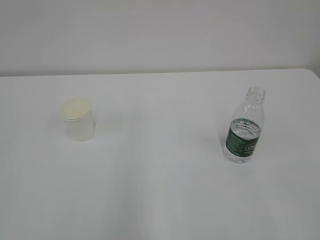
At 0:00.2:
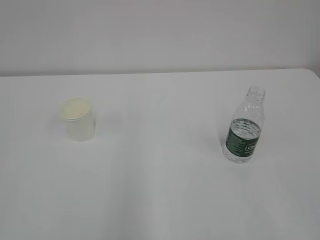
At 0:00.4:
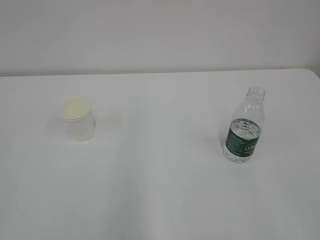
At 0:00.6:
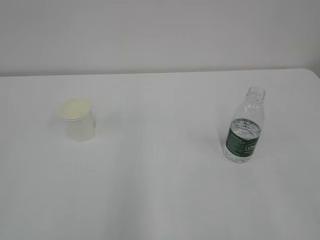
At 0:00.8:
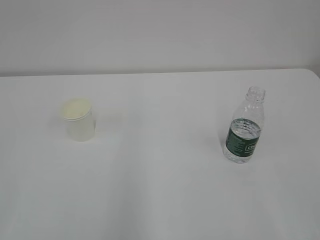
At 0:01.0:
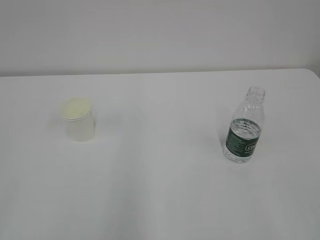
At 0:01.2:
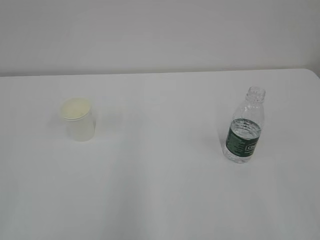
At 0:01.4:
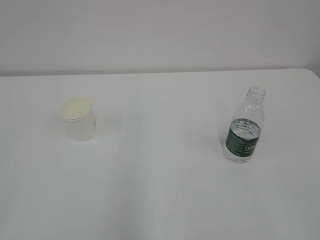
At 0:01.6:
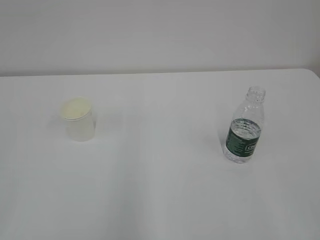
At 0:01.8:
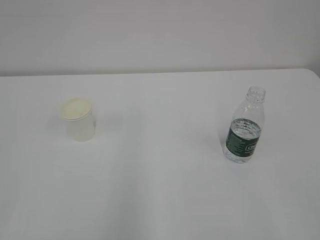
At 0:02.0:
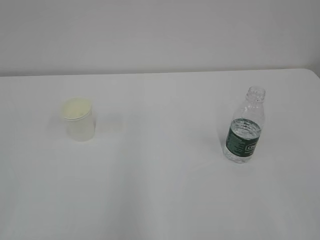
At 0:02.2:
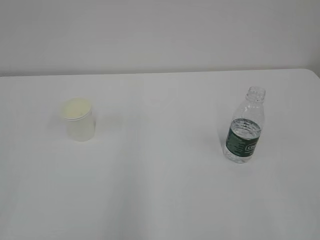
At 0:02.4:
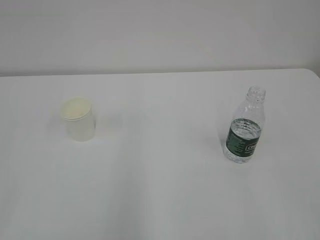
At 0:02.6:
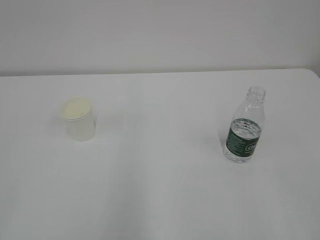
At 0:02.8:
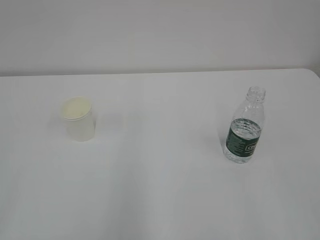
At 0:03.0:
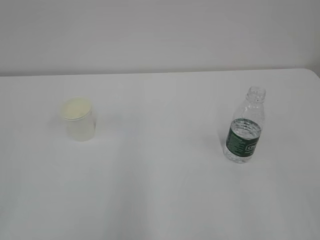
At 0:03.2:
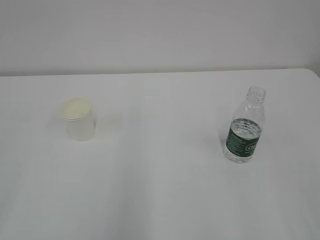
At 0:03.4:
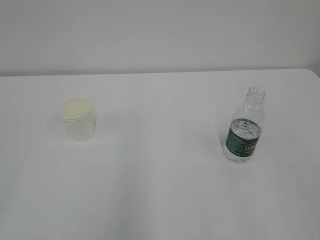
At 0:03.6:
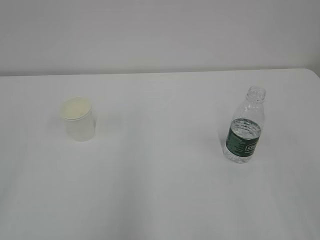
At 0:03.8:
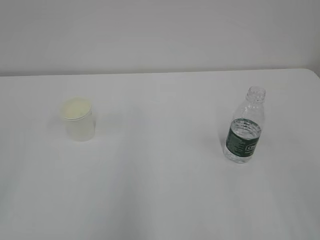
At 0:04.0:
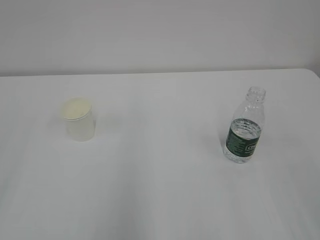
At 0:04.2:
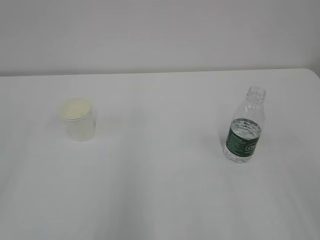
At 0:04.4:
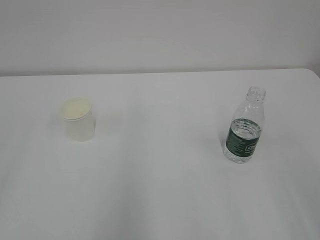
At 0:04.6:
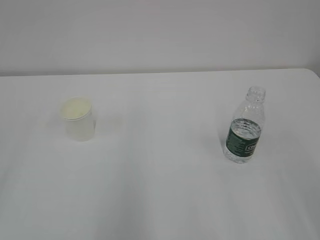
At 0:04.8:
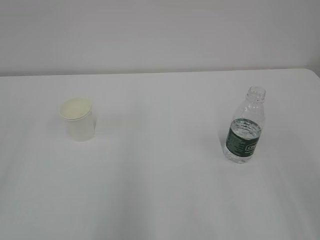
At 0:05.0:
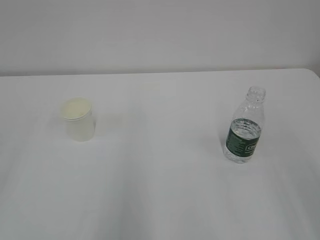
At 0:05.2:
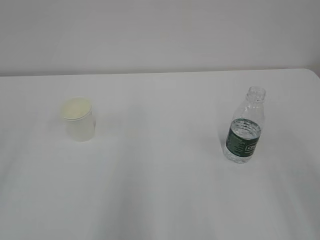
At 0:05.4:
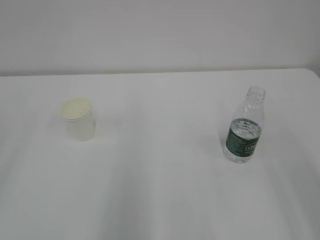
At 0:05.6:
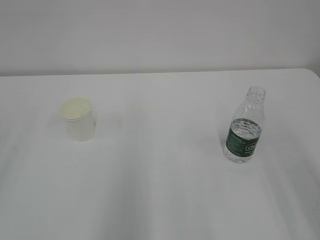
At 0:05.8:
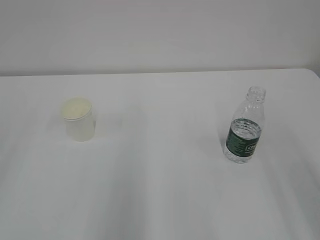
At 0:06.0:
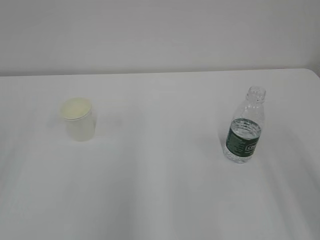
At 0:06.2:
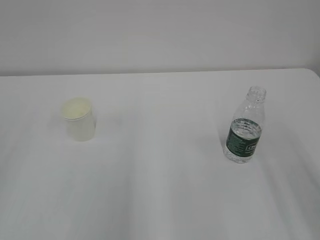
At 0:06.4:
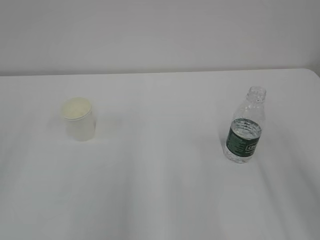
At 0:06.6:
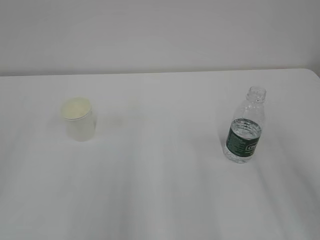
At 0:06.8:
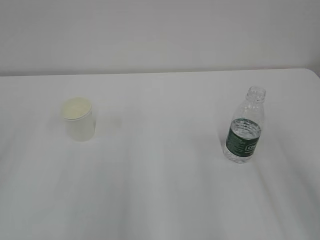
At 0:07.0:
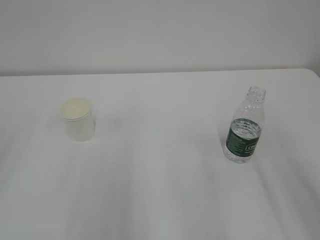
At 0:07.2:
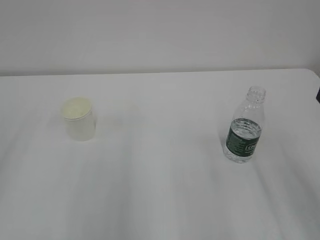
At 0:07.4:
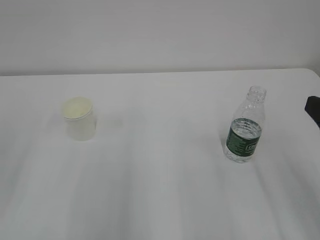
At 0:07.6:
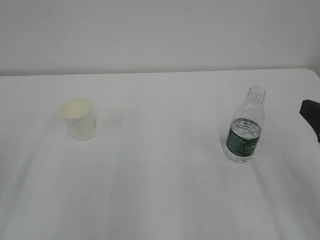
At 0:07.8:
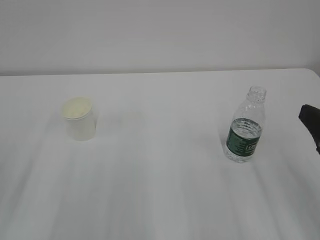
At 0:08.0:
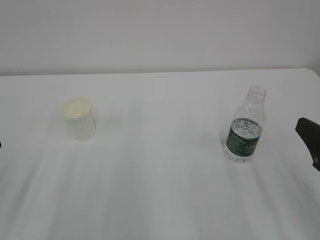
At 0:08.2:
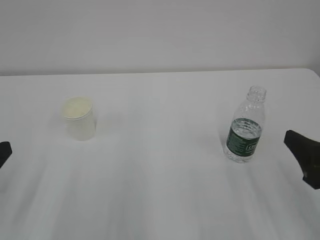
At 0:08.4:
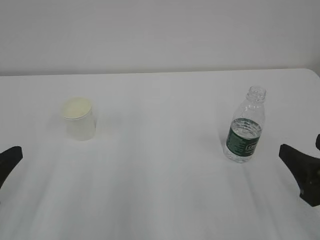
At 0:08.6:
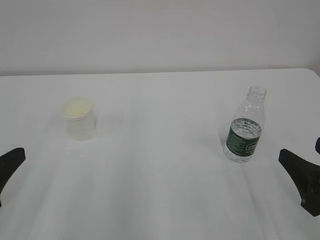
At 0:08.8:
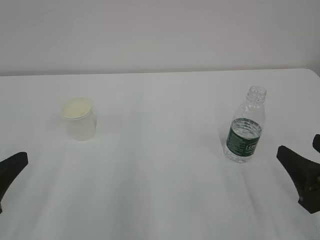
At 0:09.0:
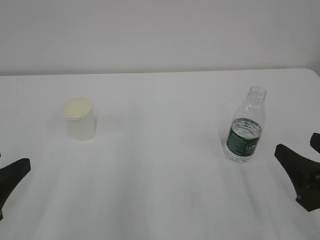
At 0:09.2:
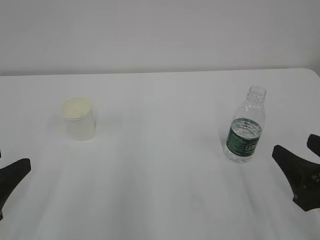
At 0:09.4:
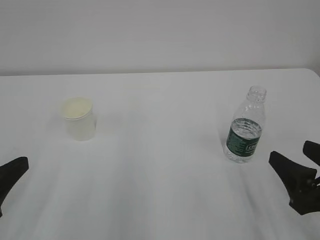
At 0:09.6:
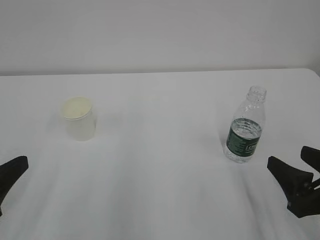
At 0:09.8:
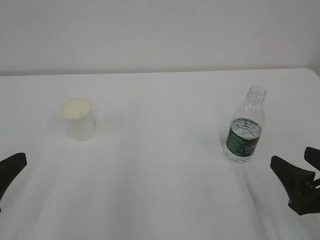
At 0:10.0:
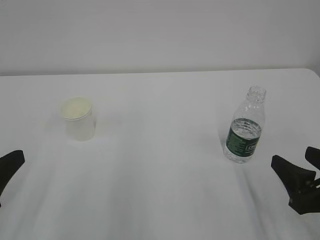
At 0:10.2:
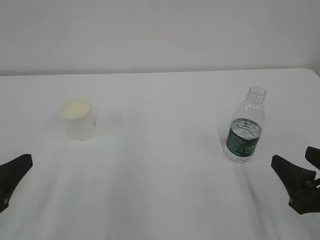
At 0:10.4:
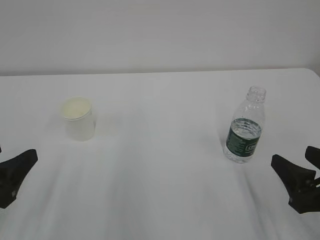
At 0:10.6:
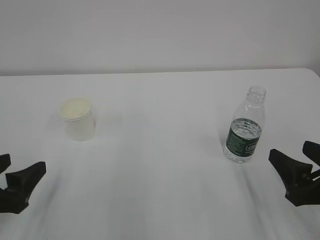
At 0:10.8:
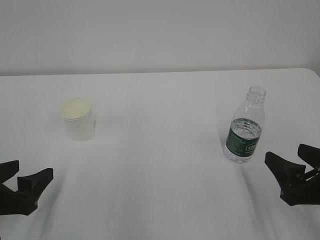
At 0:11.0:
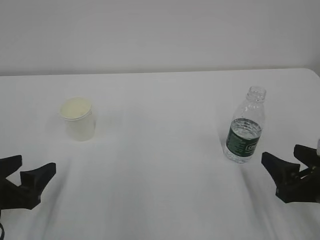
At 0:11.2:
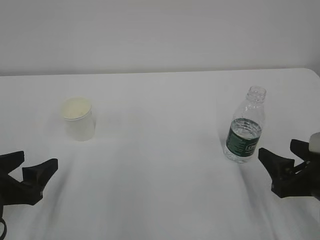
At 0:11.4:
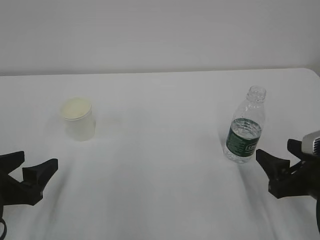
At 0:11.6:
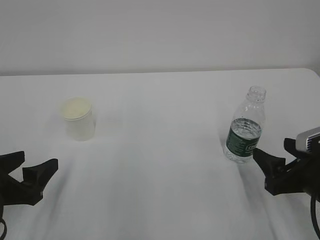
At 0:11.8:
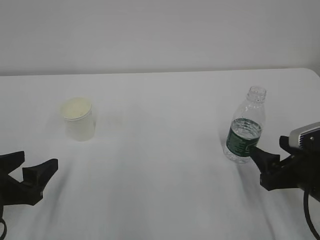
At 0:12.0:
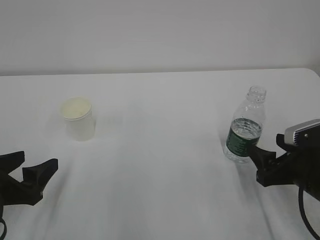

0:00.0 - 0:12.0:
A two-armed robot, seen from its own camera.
0:06.0 - 0:07.6: The right gripper heads downward, covering about 5 cm.
0:07.6 - 0:09.0: The left gripper shifts by roughly 5 cm. The right gripper heads downward, covering about 5 cm.
0:09.0 - 0:10.4: The left gripper opens its fingers.
0:10.4 - 0:12.0: The right gripper moves forward, approximately 5 cm.

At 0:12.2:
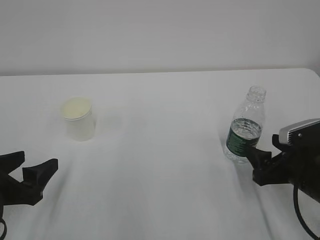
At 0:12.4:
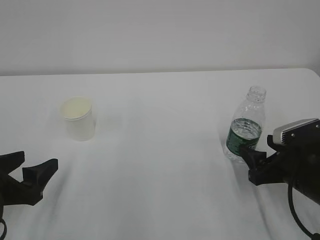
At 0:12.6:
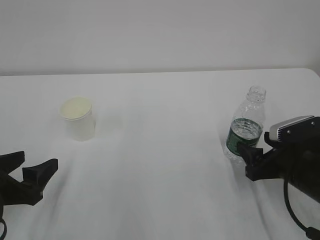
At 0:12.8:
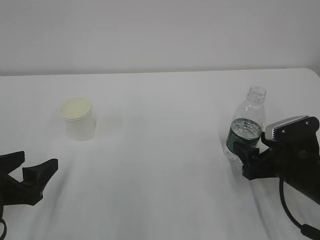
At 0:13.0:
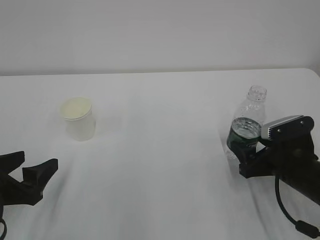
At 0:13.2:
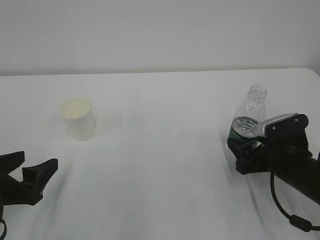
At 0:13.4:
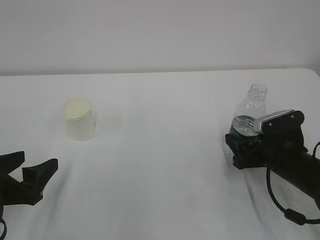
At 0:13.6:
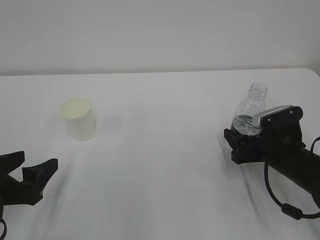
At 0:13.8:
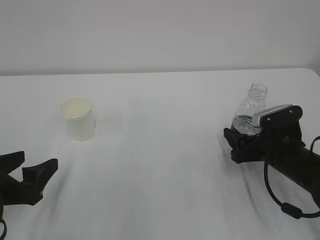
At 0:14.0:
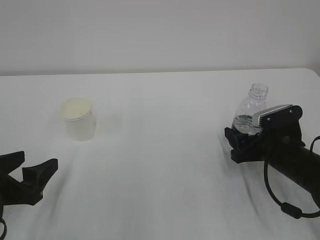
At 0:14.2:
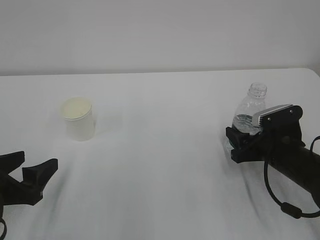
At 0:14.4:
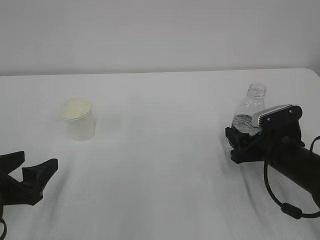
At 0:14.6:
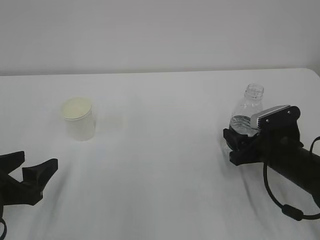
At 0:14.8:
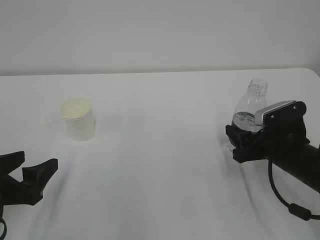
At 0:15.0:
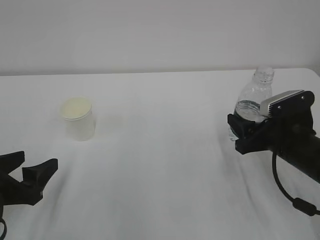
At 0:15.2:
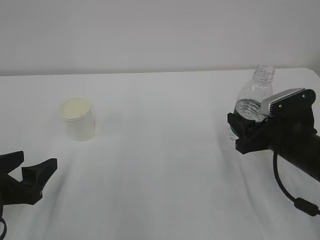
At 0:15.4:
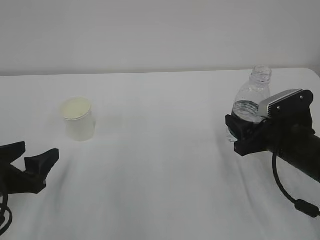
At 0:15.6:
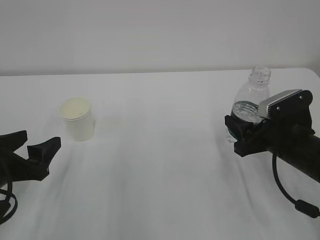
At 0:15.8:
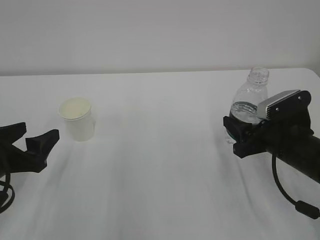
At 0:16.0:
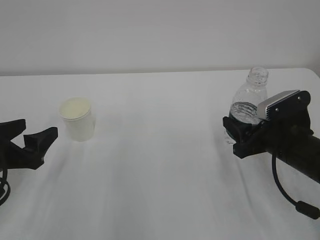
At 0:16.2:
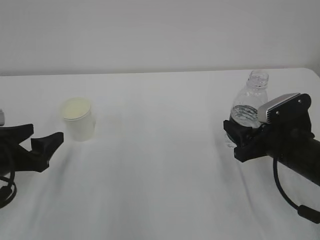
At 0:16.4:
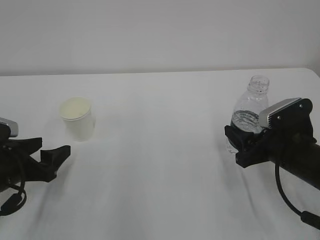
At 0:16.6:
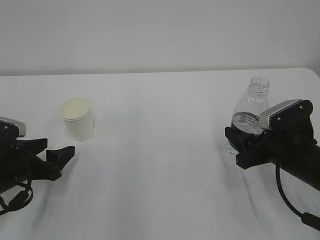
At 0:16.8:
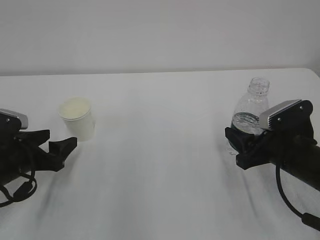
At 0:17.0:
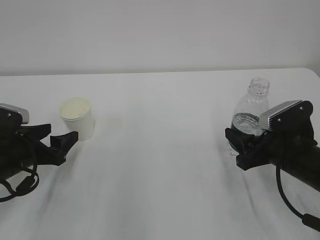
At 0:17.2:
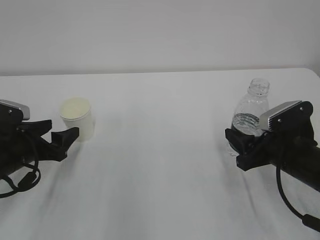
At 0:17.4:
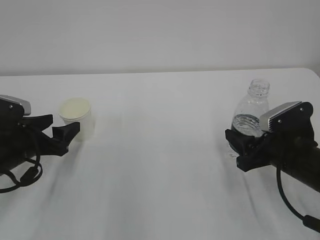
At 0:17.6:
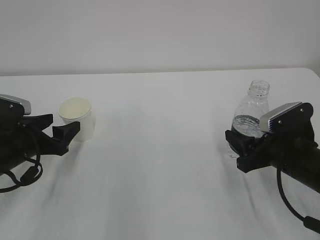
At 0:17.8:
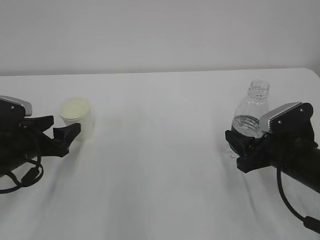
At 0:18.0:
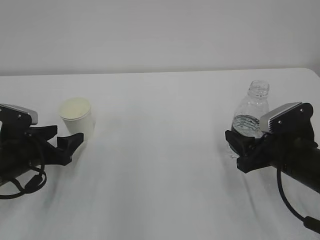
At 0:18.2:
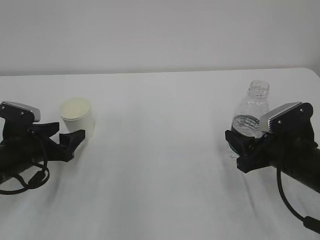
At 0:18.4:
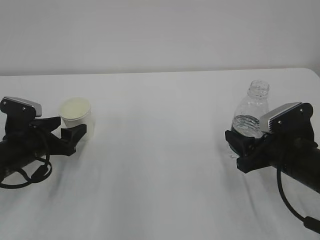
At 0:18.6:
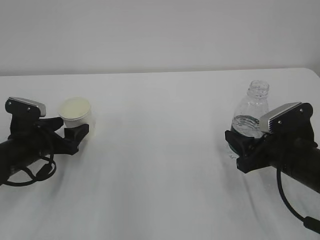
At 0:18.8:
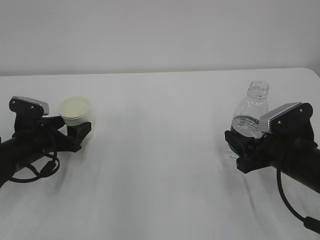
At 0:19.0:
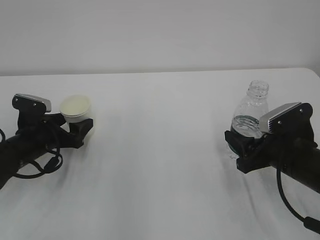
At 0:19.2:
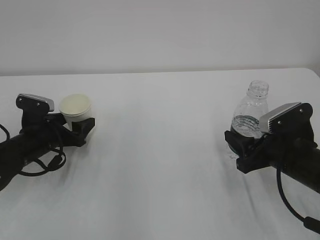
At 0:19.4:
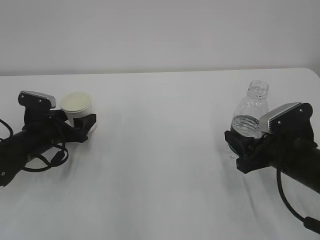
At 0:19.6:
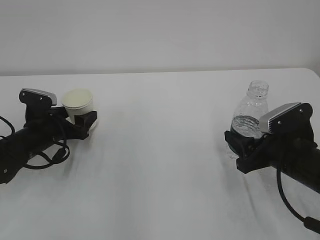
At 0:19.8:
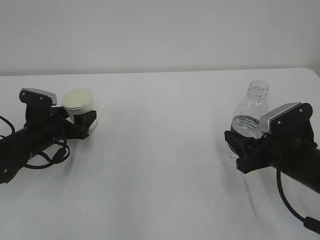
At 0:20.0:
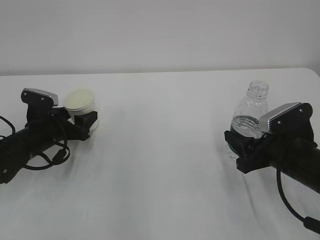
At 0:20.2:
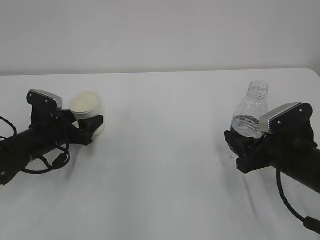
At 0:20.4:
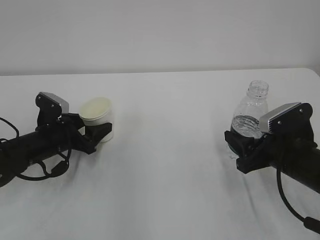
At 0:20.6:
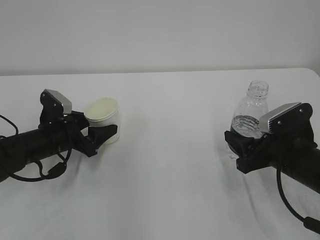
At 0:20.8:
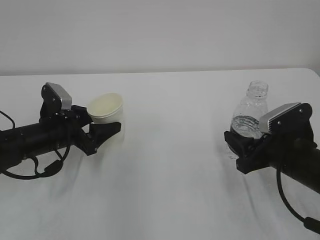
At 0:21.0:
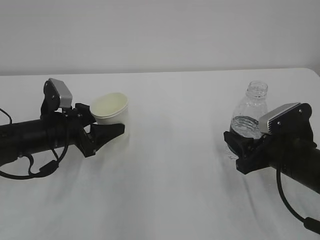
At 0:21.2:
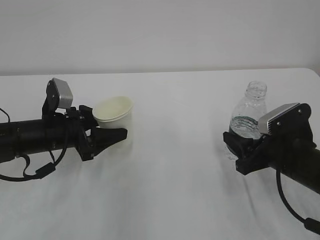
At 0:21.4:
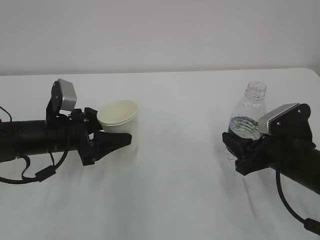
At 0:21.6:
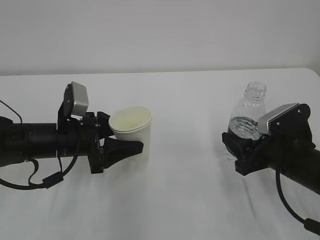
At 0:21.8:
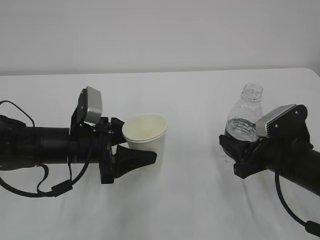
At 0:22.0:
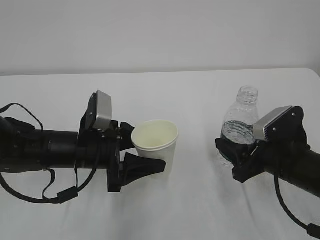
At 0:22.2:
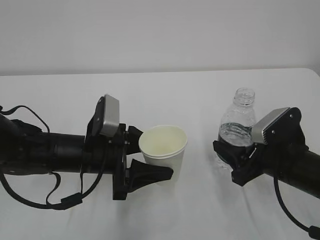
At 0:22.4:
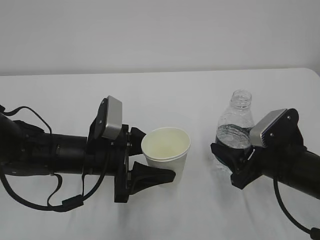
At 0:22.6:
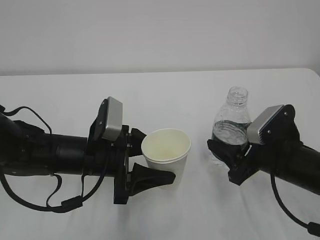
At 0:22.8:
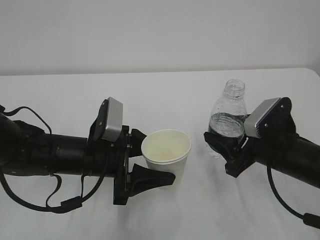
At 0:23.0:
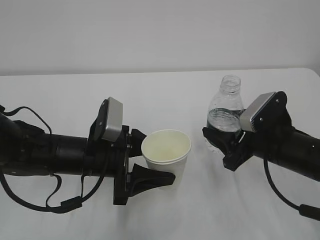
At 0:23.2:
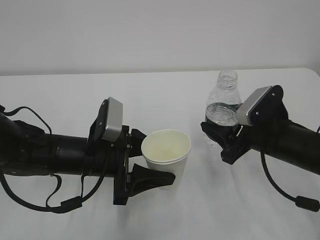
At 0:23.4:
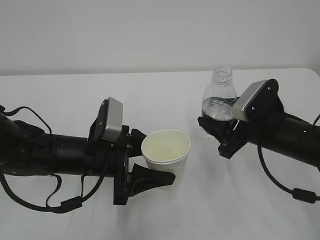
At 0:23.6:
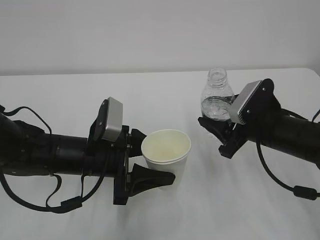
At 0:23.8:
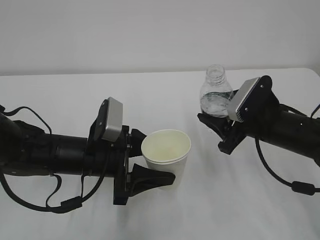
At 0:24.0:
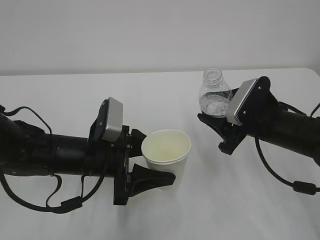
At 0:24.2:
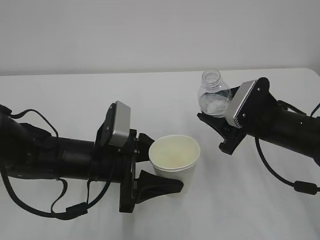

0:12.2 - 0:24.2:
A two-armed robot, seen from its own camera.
0:12.2 - 0:13.8: The right gripper shifts roughly 5 cm forward.
0:13.8 - 0:15.2: The right gripper closes.
0:15.2 - 0:16.6: The left gripper shifts some 5 cm forward.
0:16.6 - 0:18.2: The grippers stay close to where they were, moving slightly.
0:18.2 - 0:19.8: The left gripper goes about 5 cm forward, and closes its fingers.
0:19.8 - 0:21.2: The left gripper moves about 10 cm.
0:21.2 - 0:22.6: The left gripper travels to the right and backward by about 10 cm.
0:22.6 - 0:24.2: The right gripper goes roughly 5 cm forward.
